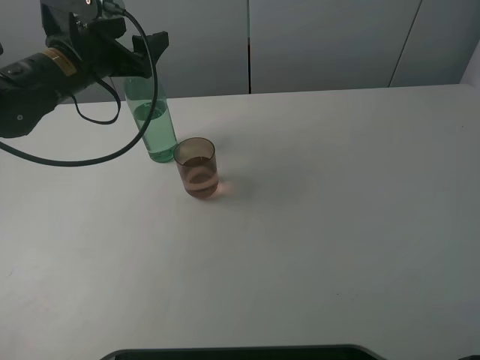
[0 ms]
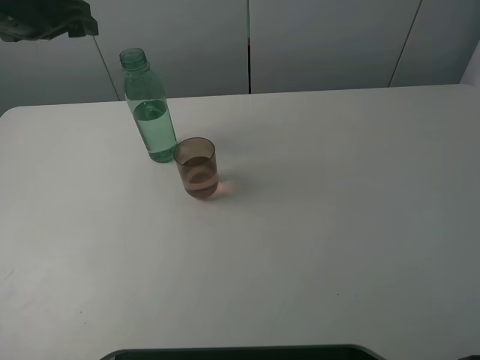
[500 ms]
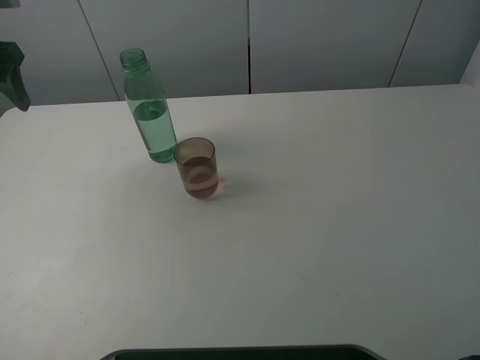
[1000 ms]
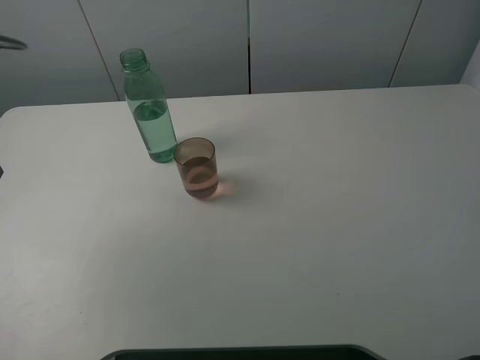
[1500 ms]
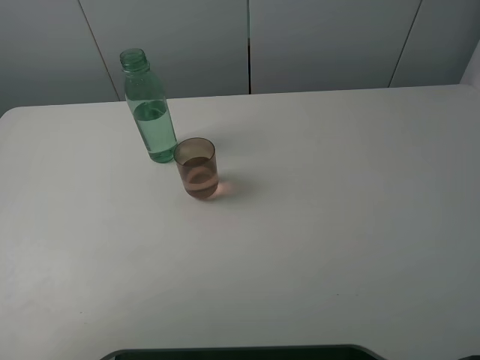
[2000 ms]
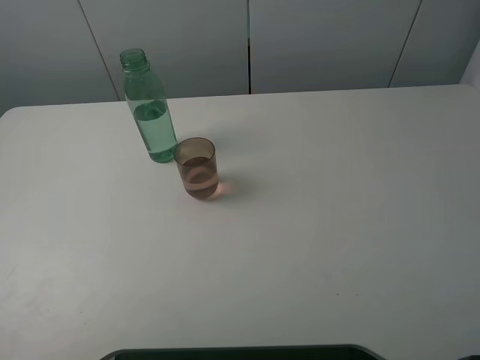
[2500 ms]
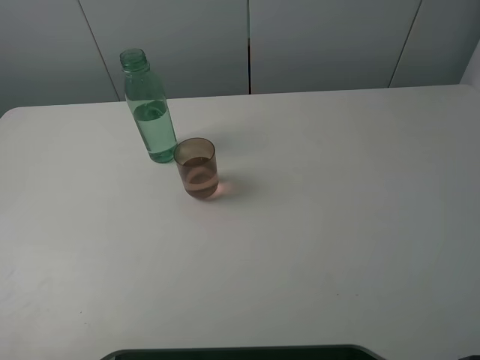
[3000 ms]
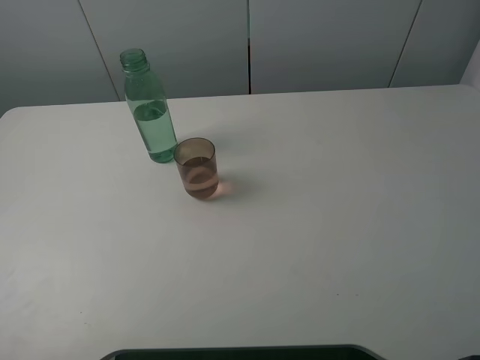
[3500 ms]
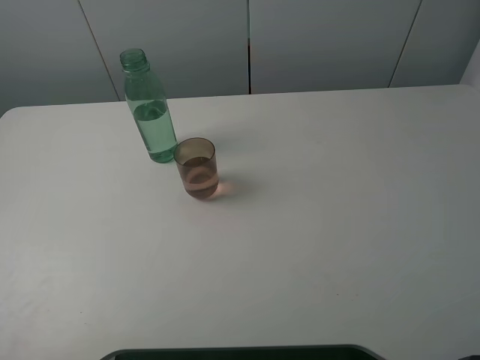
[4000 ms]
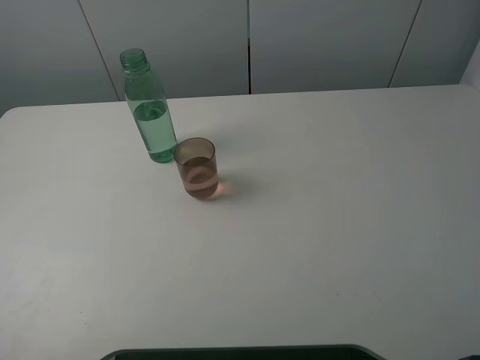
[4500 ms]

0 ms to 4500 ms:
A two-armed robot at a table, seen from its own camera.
Task of the whole recording: pick up the bottle filled with water and pour it into the pink cup.
0 ms to 2000 ms: The left gripper travels backward and to the left by some 30 cm.

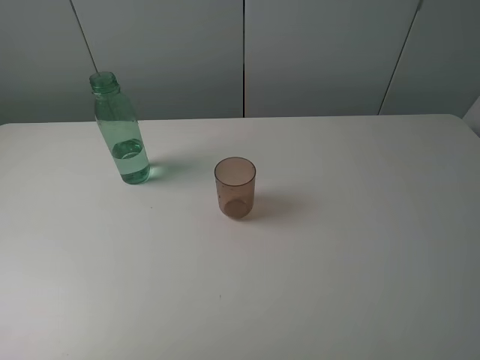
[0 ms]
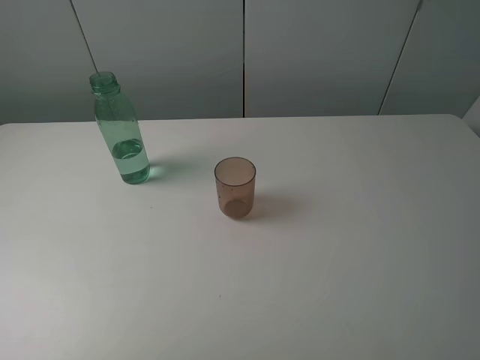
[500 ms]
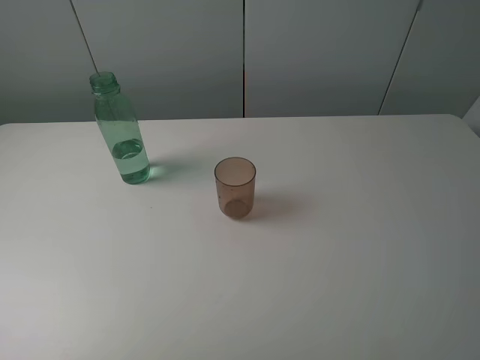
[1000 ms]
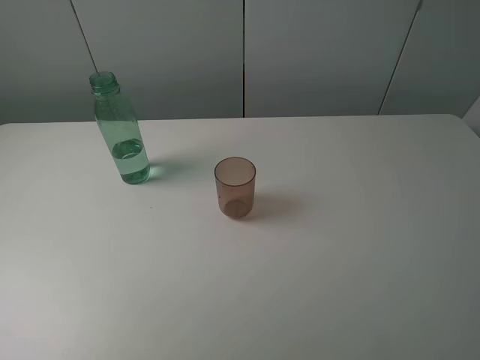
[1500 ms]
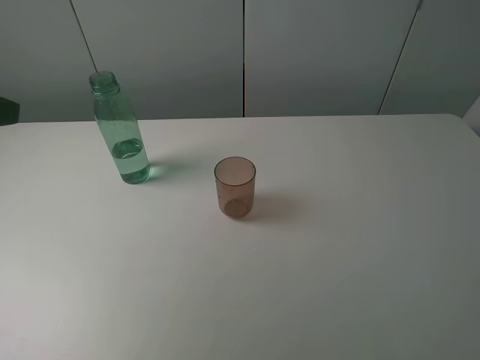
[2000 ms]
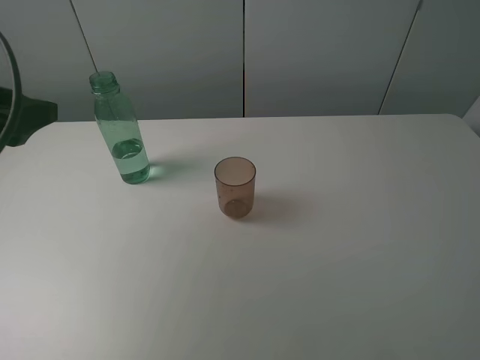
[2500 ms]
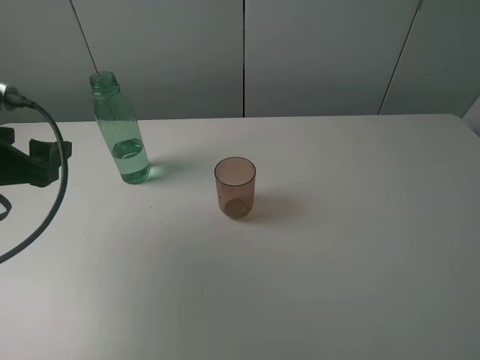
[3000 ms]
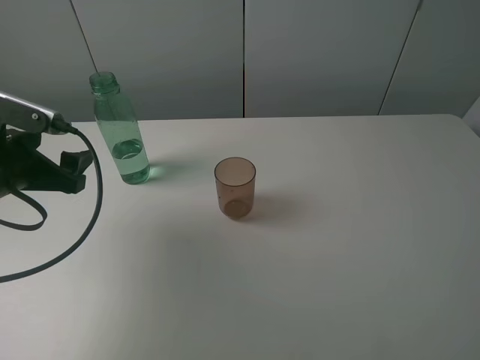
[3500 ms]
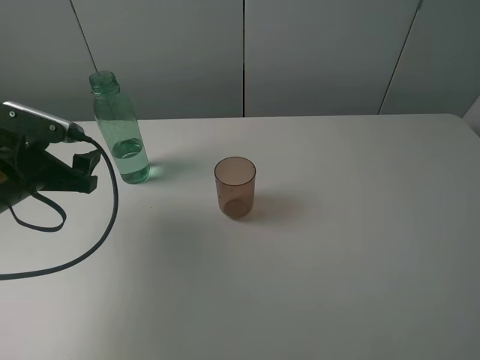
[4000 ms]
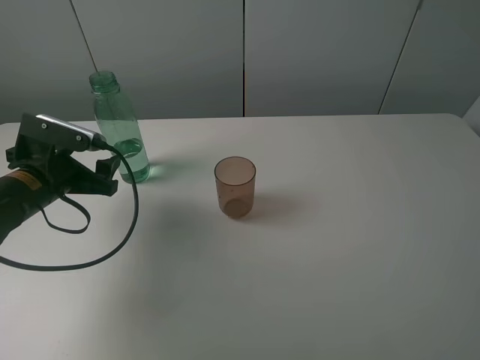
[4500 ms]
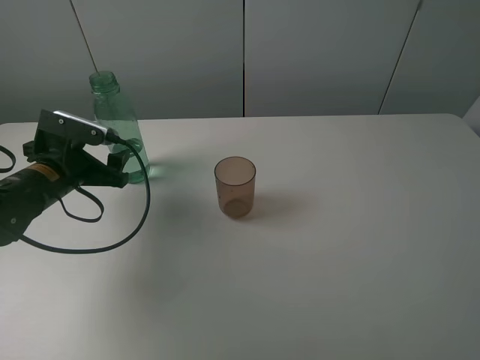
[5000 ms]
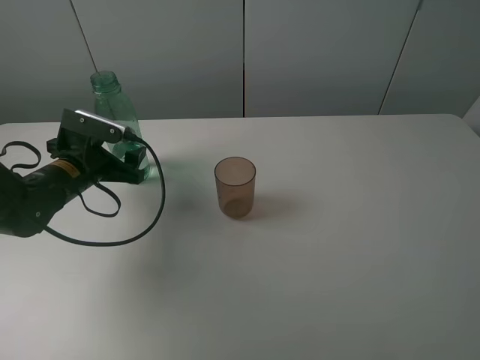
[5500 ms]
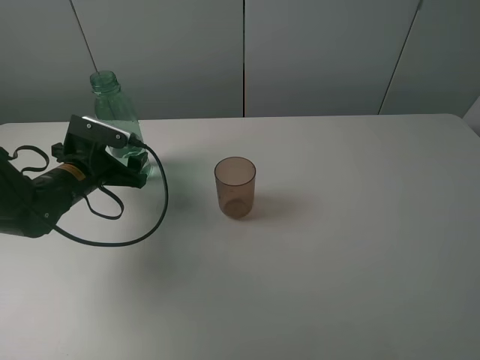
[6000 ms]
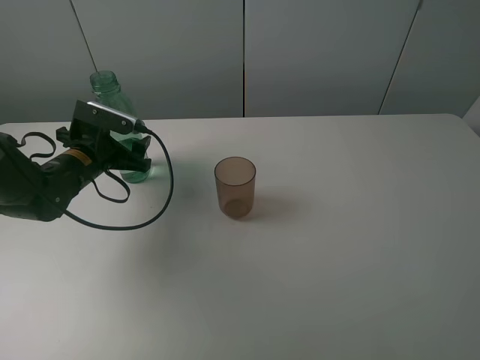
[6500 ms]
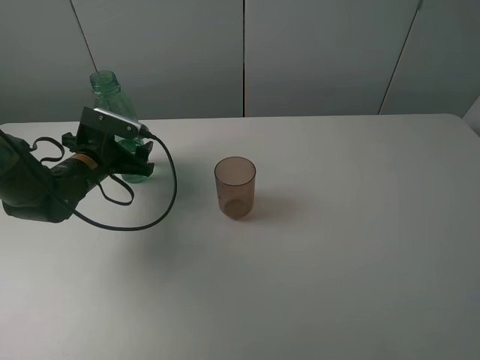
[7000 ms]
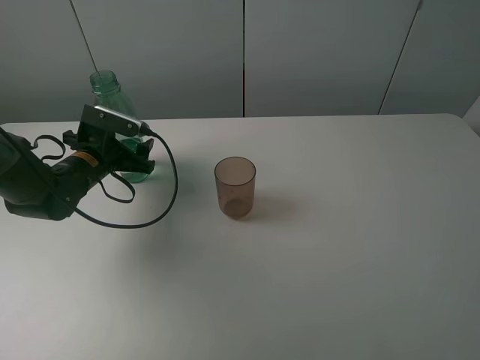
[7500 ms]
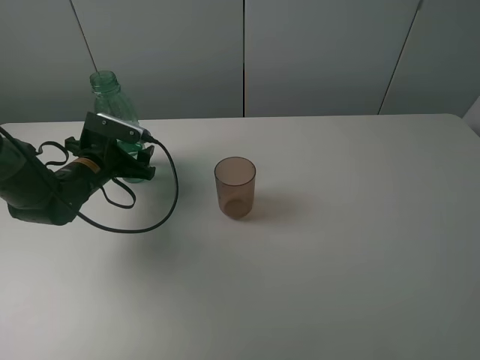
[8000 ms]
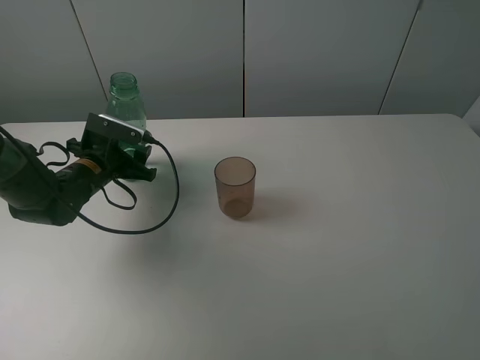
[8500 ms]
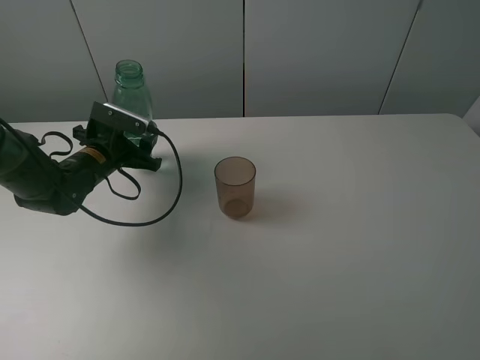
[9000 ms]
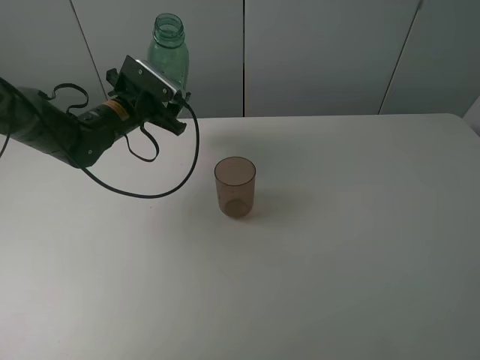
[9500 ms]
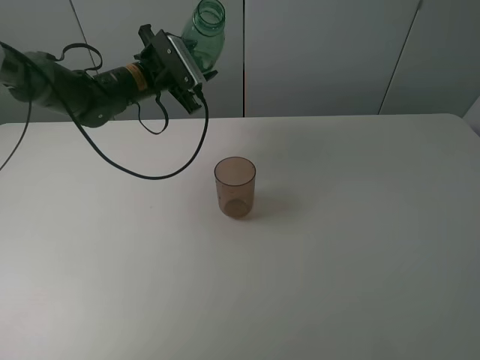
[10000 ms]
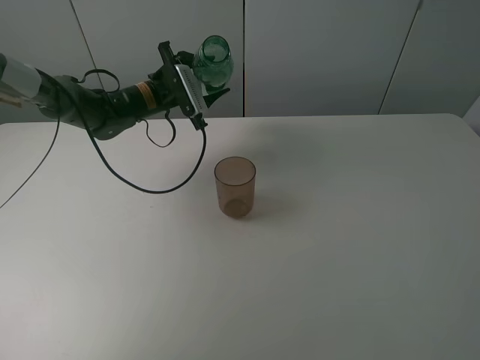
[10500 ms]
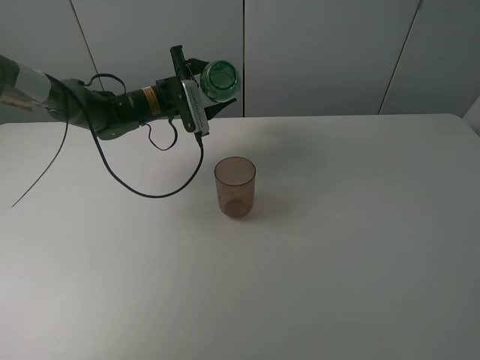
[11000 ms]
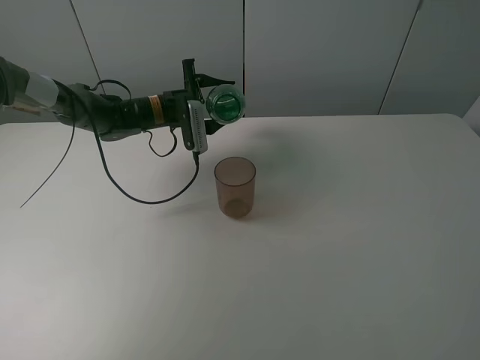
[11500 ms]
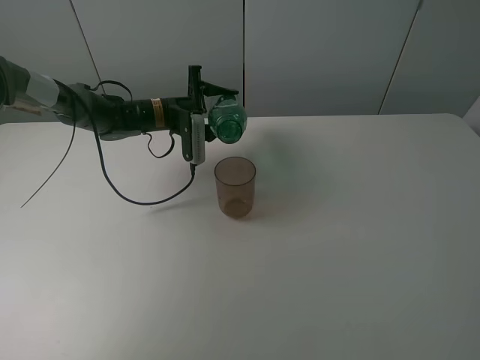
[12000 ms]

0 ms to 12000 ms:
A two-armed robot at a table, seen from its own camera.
Task of the whole recording: pick up the bottle filled with water and pour it into the pink cup.
Step, 0 ms to 8000 ms: Grasp the green bottle with the left gripper.
2000 ms to 4000 ms: The left gripper heads downward and forward, covering some 20 cm.
4000 ms to 6000 ms: The left gripper travels forward and downward by some 10 cm.
6000 ms to 8000 ms: The grippers move only a little.
8000 ms to 10000 ms: The left gripper moves forward, upward and to the right, approximately 15 cm, and closes its fingers.
10000 ms to 12000 ms: The left gripper is displaced downward by some 5 cm.

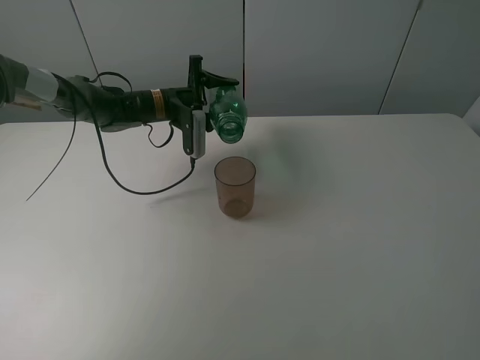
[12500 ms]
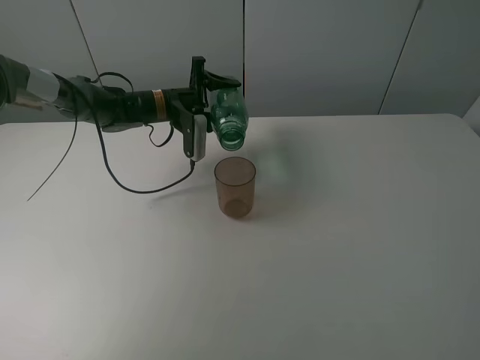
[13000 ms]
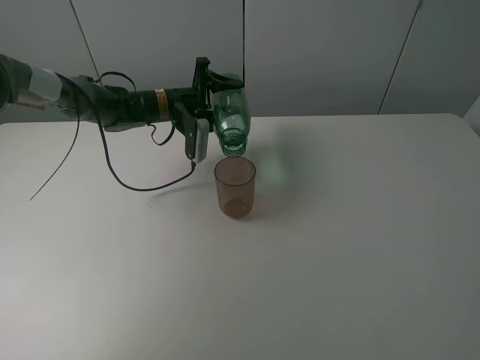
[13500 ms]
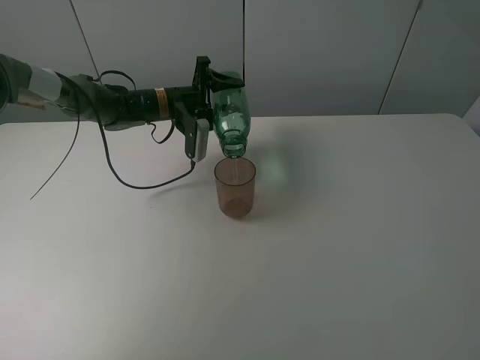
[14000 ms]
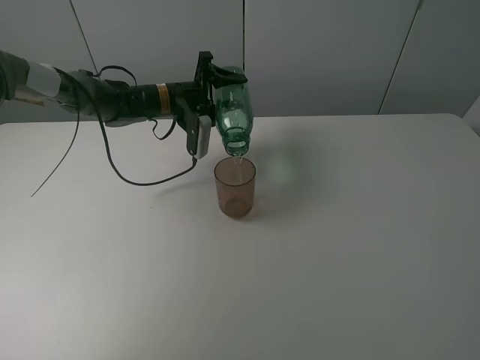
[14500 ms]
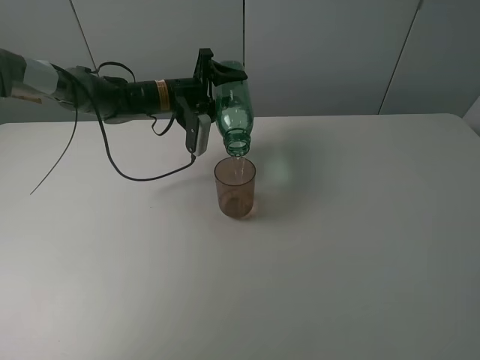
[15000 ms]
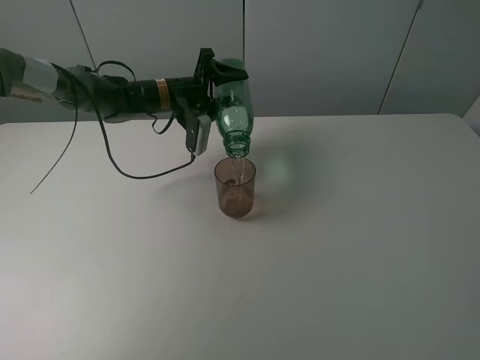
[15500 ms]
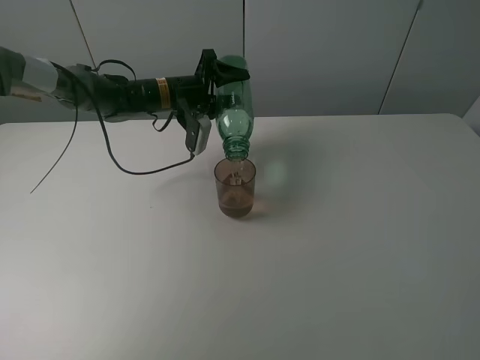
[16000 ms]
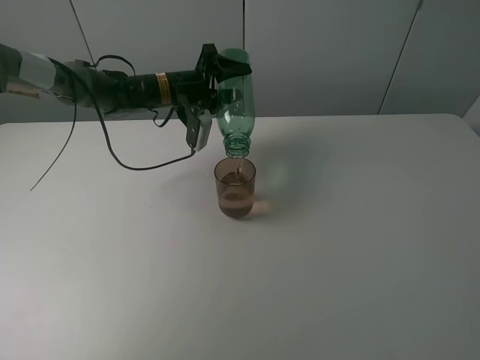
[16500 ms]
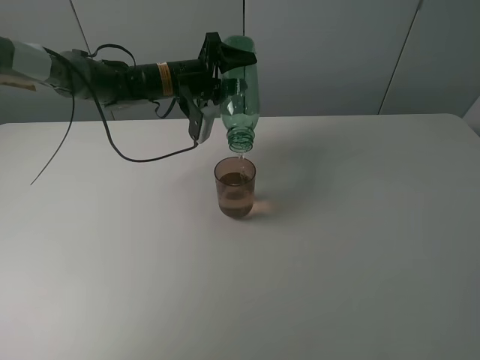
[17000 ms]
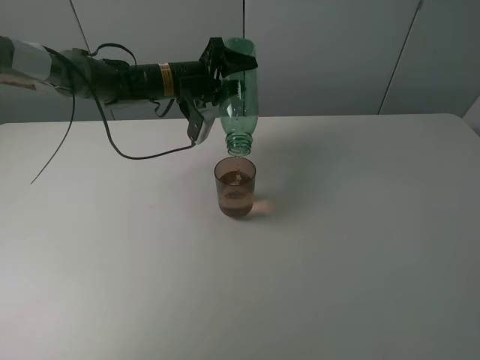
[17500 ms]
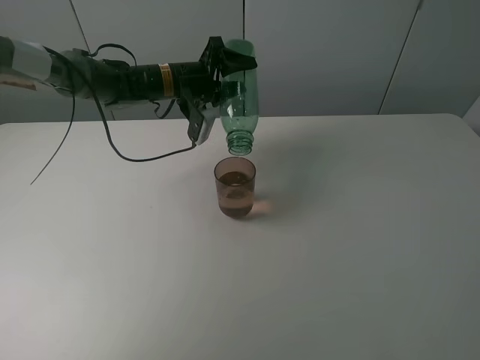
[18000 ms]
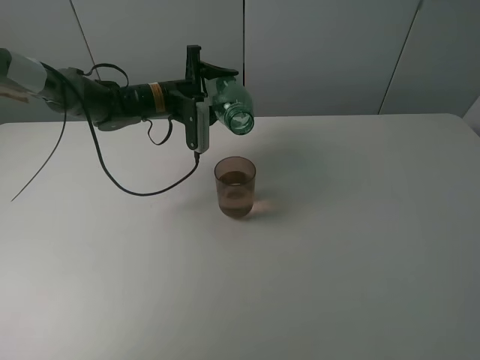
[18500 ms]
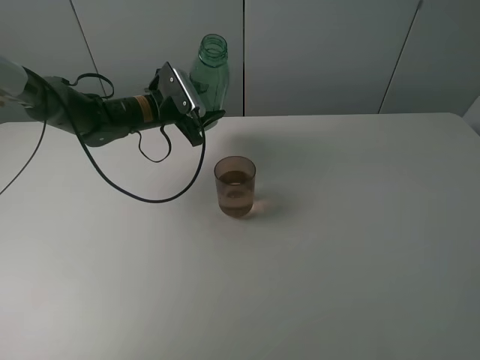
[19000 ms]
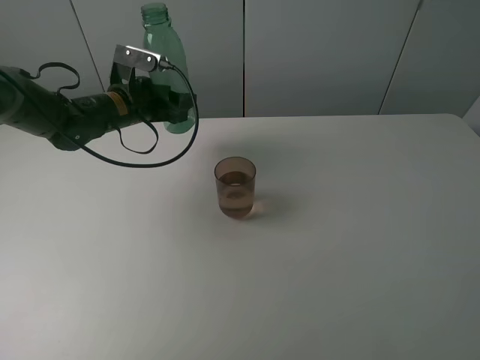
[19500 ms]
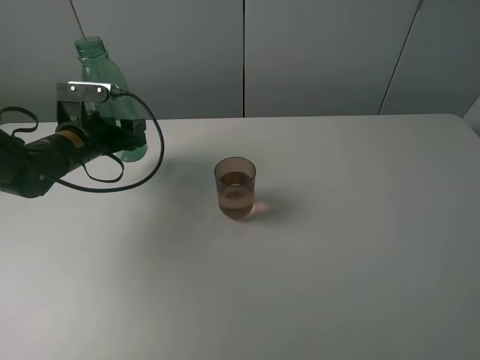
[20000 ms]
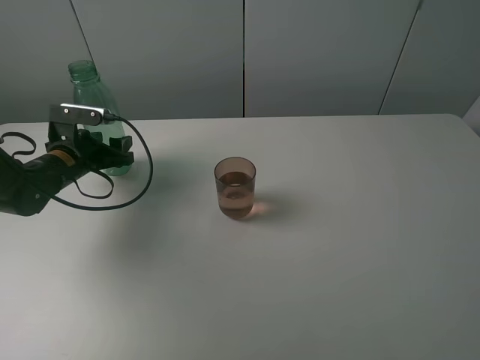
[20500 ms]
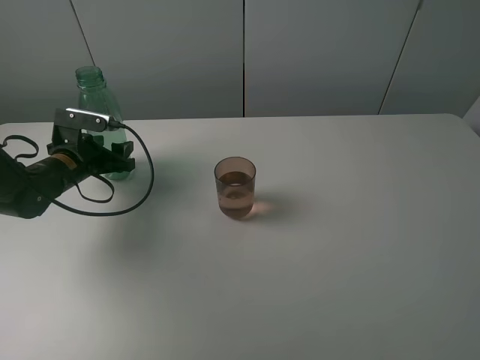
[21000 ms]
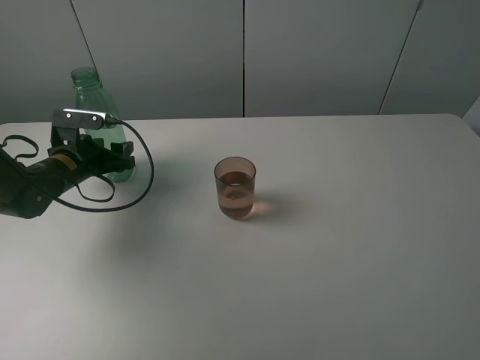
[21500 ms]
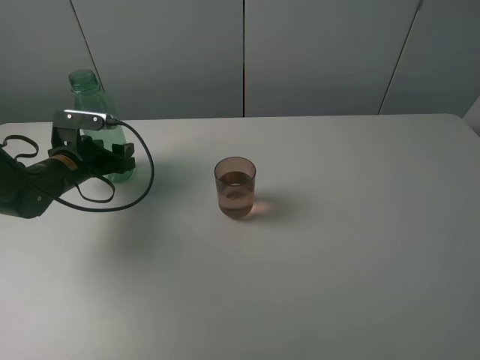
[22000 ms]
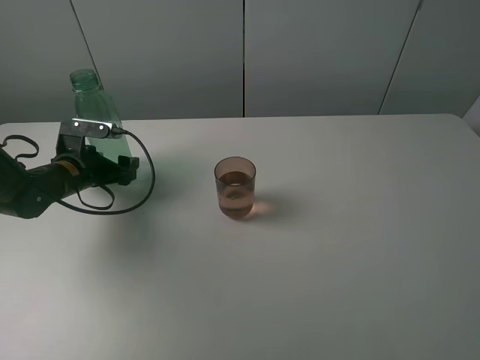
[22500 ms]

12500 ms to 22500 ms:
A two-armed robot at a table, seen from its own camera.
Task of the whole recording: pick up the bottle filled with water and pour it into the pink cup.
Step, 12500 ms to 18000 ms: Pour water from green bottle to pink cup with the left gripper.
12500 ms to 14500 ms: There are only small adjustments of the grippers.
14500 ms to 16500 ms: The grippers make only small movements.
18500 ms to 20500 ms: The left gripper heads to the left and backward, covering some 20 cm.
20500 ms to 22500 ms: The left gripper opens.
